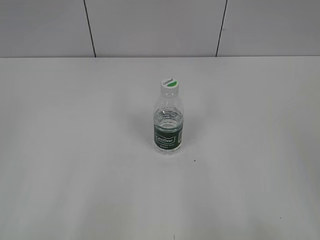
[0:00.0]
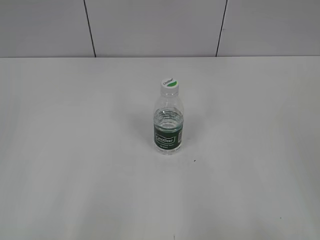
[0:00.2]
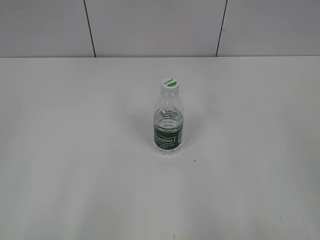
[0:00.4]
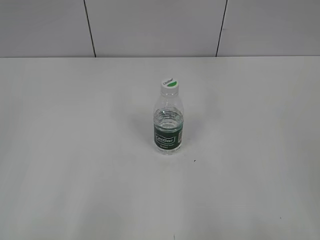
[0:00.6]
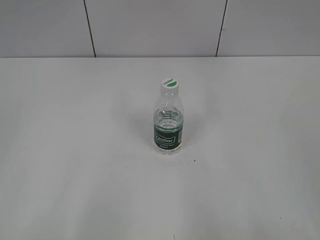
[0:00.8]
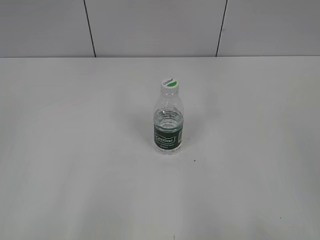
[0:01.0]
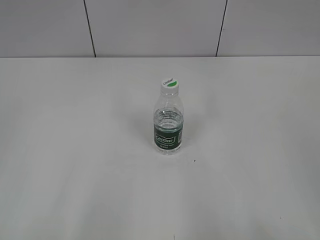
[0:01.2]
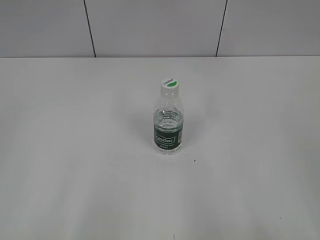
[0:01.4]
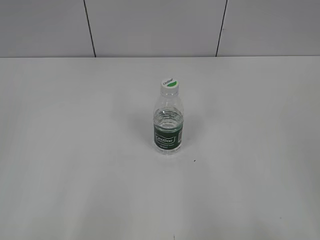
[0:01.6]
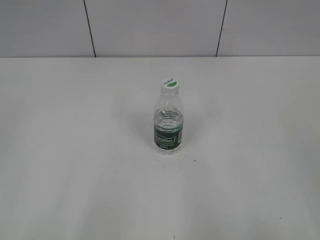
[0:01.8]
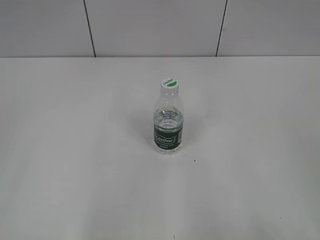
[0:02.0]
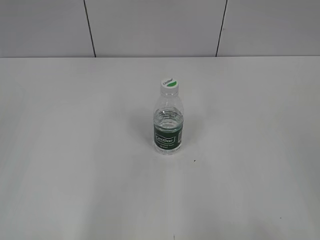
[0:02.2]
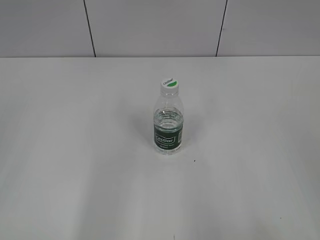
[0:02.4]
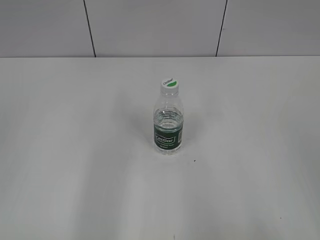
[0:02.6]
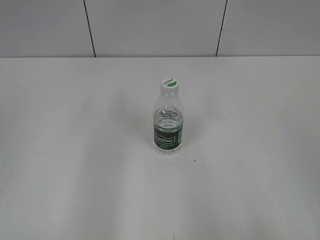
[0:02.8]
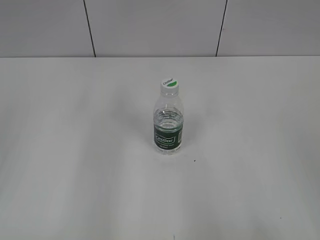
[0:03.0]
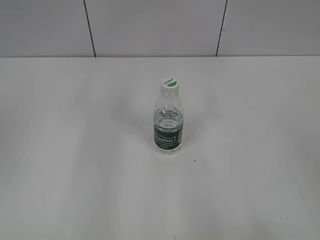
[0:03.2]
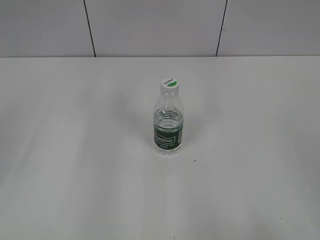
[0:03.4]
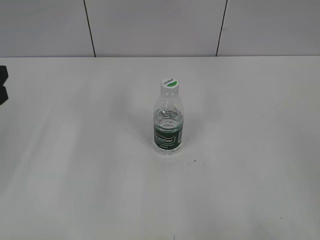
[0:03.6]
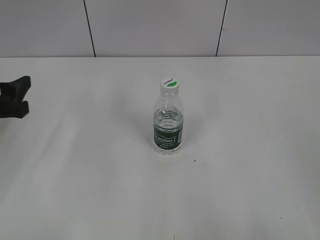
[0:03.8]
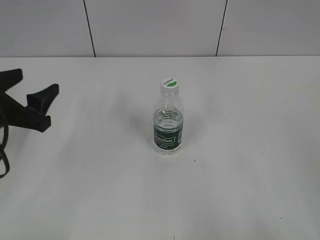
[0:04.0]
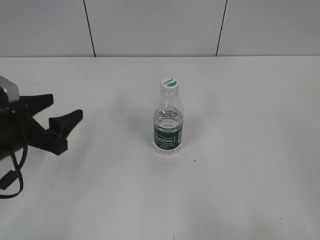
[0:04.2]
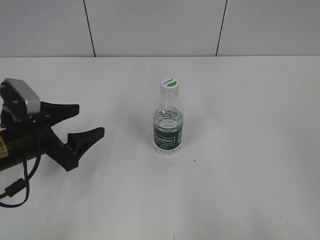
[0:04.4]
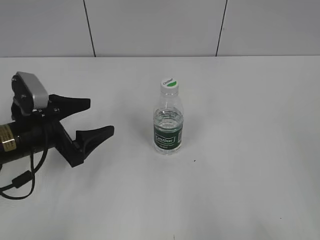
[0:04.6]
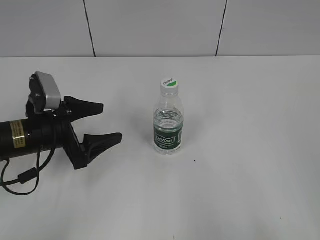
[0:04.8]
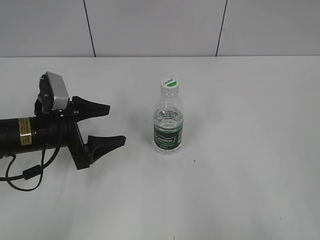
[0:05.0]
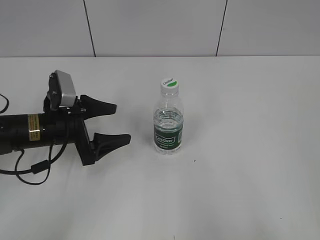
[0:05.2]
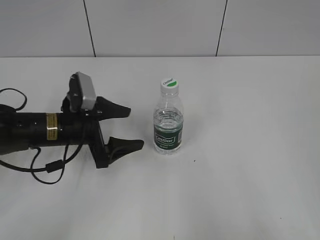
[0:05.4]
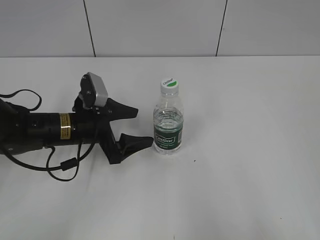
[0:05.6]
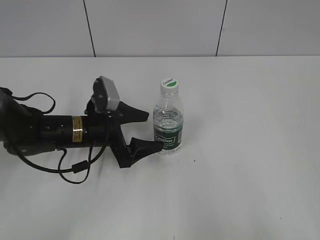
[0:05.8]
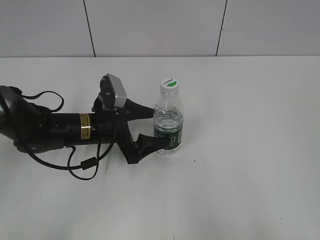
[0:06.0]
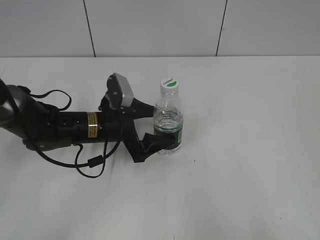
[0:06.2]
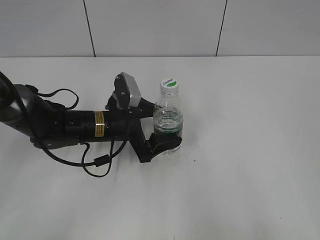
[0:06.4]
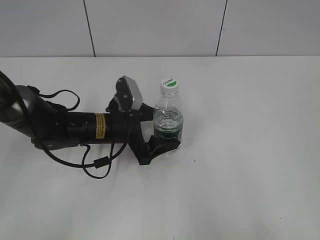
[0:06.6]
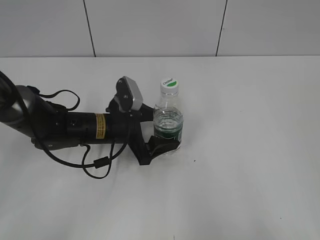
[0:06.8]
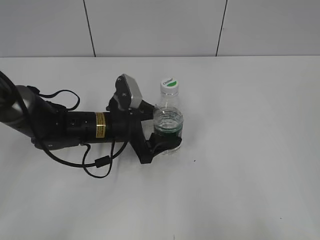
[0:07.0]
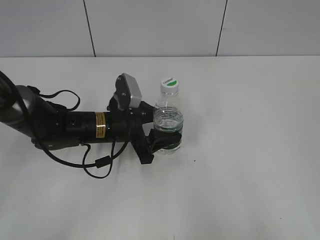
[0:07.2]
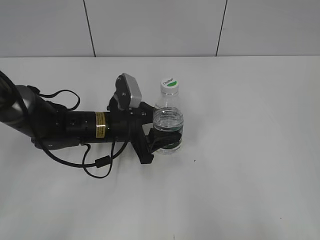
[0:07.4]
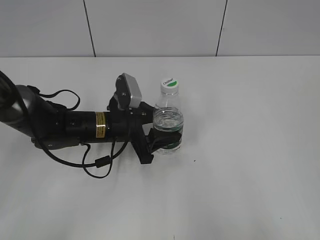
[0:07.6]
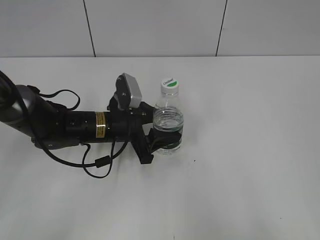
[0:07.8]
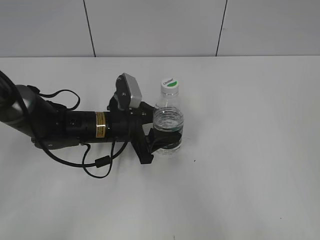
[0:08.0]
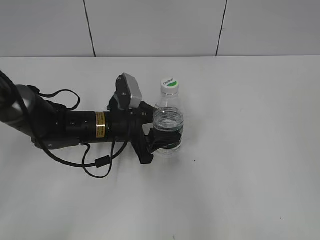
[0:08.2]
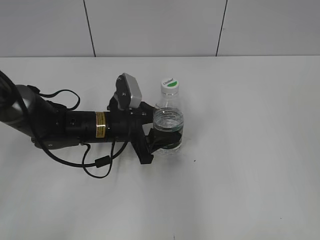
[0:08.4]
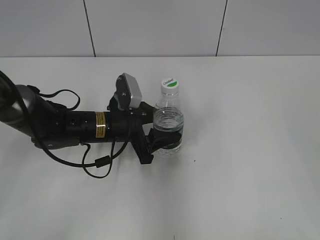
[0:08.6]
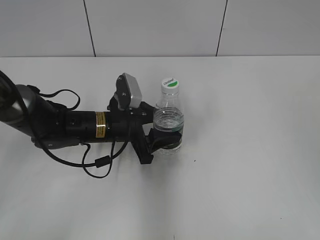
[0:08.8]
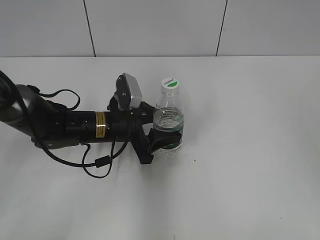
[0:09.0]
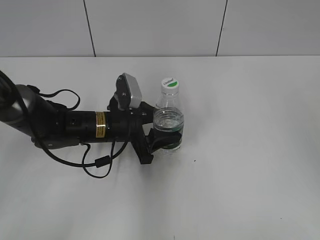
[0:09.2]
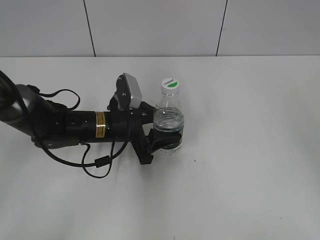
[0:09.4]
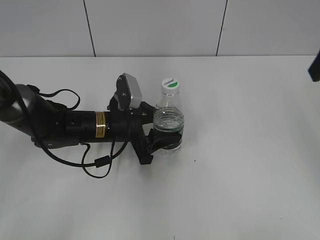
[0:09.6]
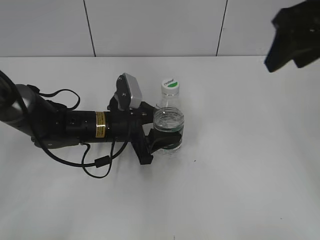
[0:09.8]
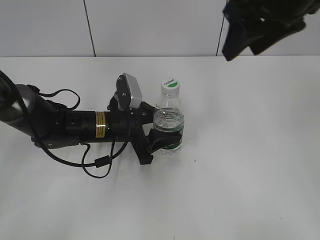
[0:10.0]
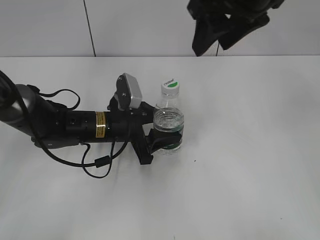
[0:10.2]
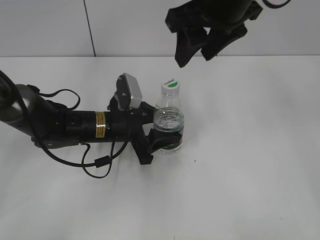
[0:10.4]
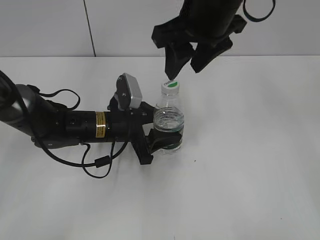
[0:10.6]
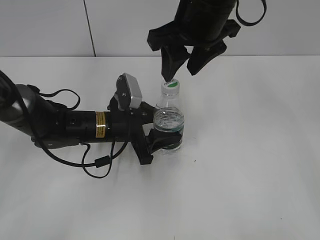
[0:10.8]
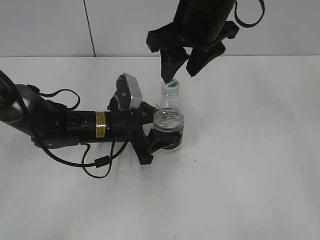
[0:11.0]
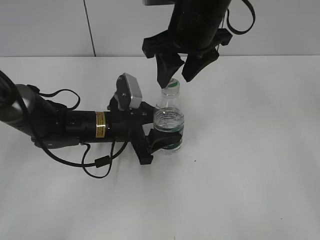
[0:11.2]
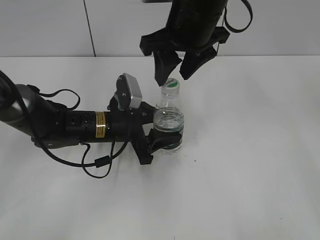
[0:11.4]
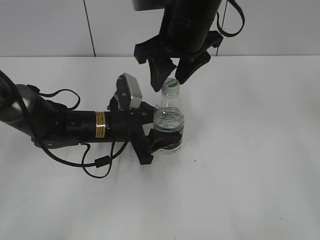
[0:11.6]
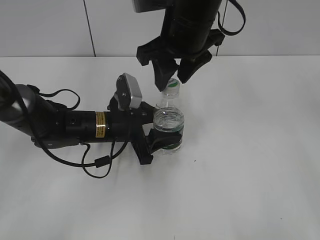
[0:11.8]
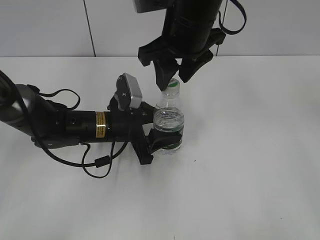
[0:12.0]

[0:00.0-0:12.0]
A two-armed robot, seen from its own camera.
Step, 0:00.0 to 0:07.4: Grasp the bottle and move it to the center of the table with the left gripper.
0:03.0 to 0:04.4: The left gripper travels downward, forward and to the right by roughly 20 cm.
0:04.4 to 0:06.0: The left gripper shifts roughly 10 cm to the right and forward.
0:06.0 to 0:07.6: The left gripper closes.
0:07.6 to 0:09.0: The right gripper shifts about 20 cm forward, and closes up.
0:09.0 to 0:10.4: The right gripper goes some 25 cm to the left and forward.
0:10.4 to 0:12.0: The right gripper travels downward by approximately 5 cm.

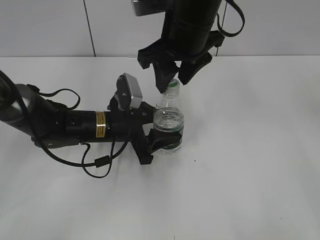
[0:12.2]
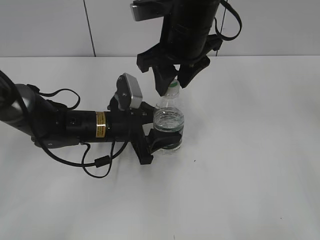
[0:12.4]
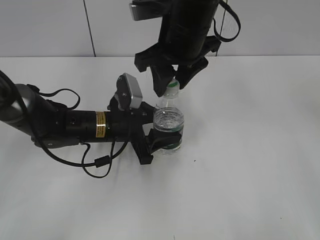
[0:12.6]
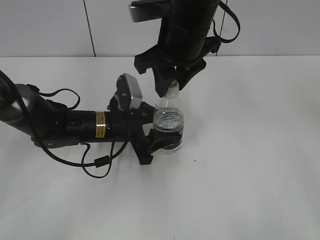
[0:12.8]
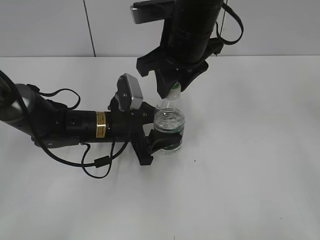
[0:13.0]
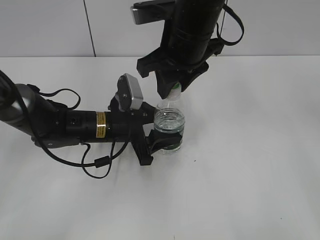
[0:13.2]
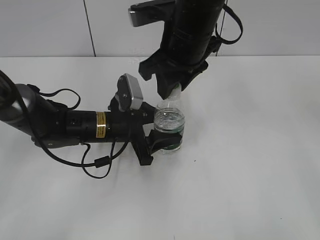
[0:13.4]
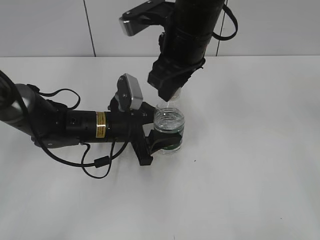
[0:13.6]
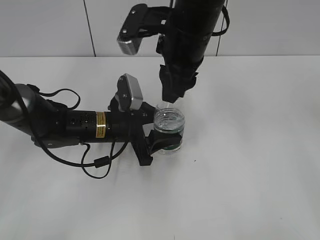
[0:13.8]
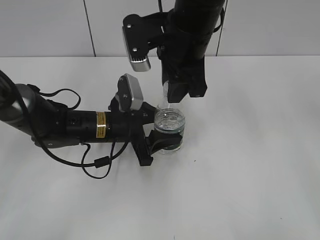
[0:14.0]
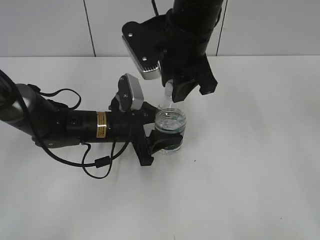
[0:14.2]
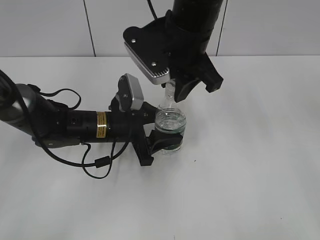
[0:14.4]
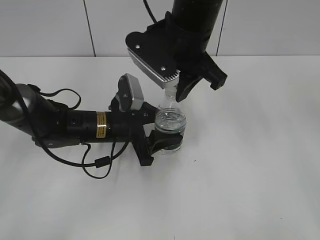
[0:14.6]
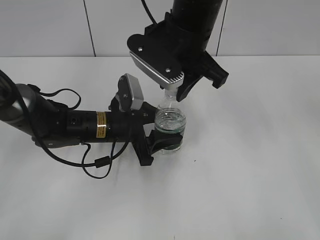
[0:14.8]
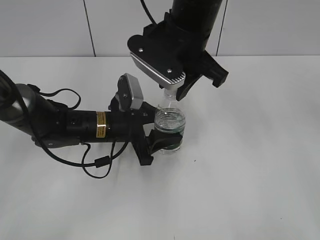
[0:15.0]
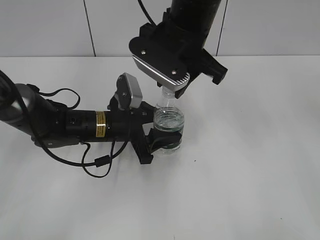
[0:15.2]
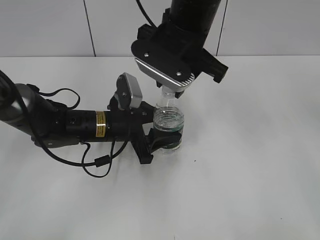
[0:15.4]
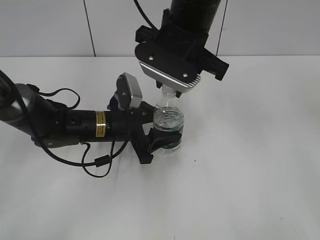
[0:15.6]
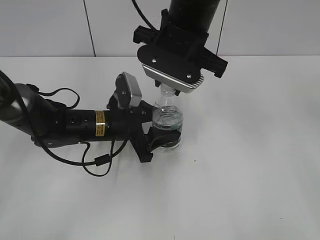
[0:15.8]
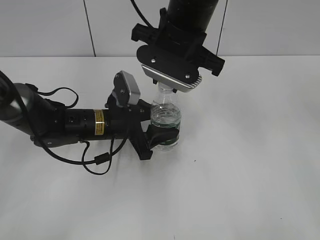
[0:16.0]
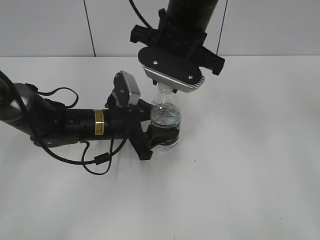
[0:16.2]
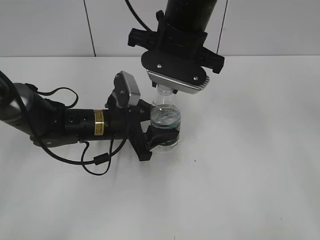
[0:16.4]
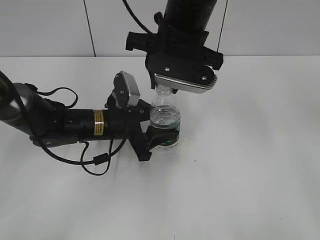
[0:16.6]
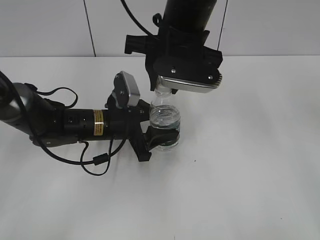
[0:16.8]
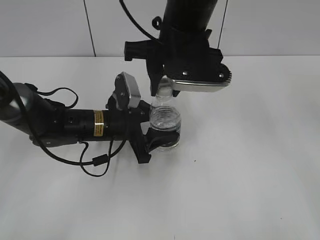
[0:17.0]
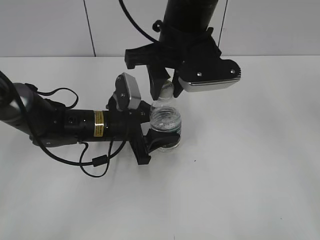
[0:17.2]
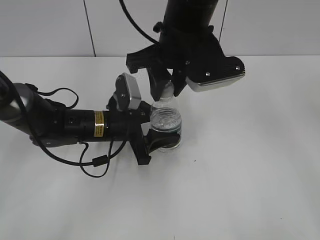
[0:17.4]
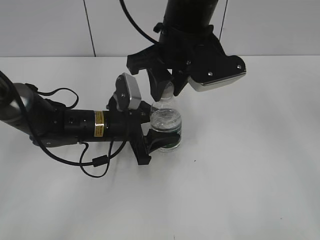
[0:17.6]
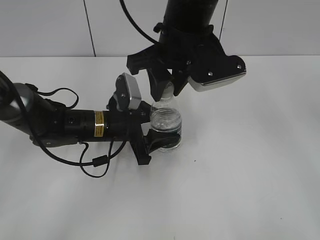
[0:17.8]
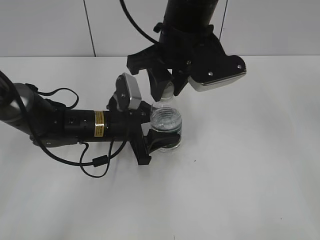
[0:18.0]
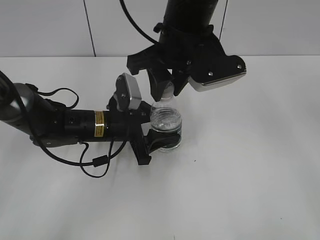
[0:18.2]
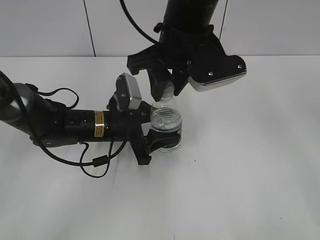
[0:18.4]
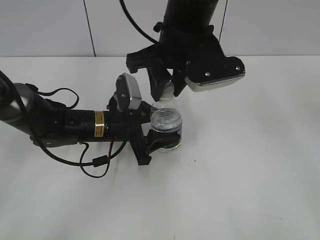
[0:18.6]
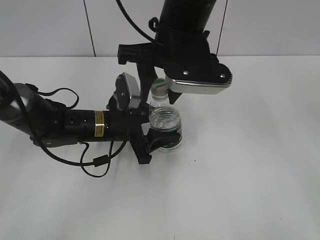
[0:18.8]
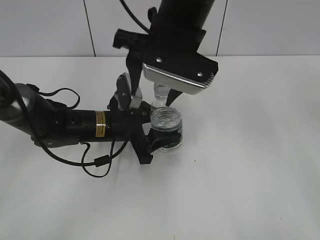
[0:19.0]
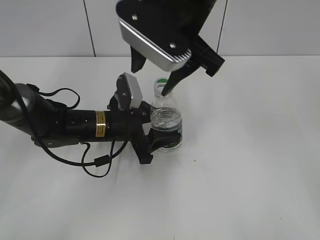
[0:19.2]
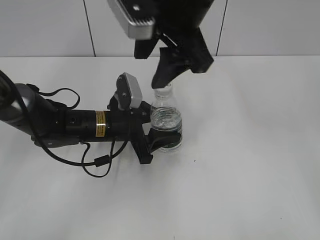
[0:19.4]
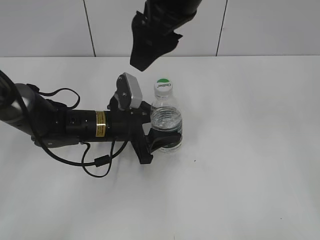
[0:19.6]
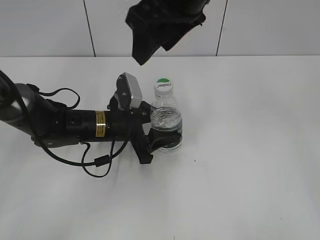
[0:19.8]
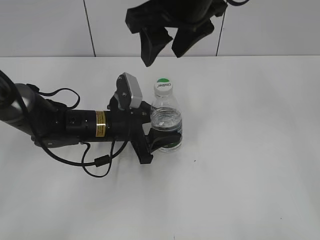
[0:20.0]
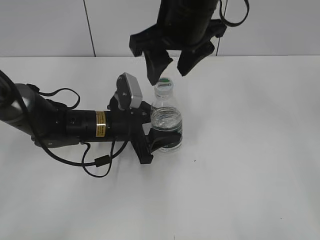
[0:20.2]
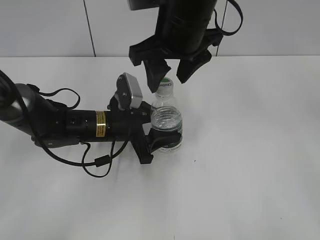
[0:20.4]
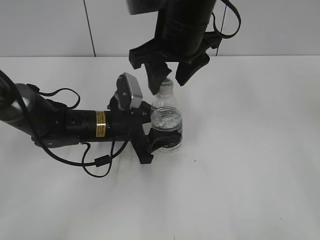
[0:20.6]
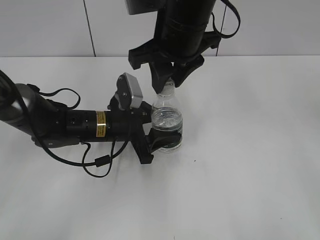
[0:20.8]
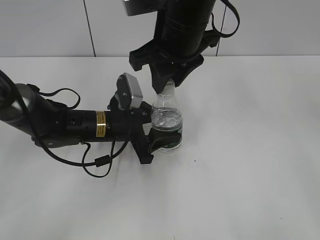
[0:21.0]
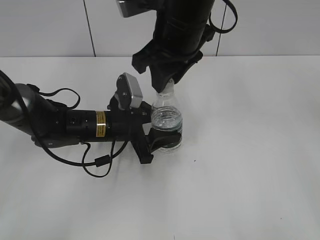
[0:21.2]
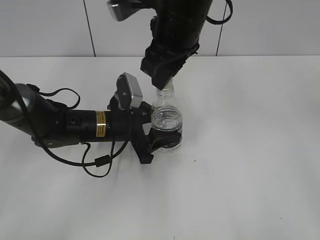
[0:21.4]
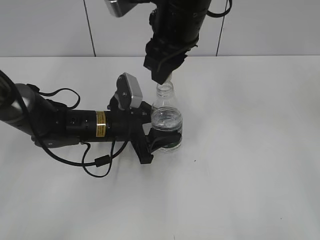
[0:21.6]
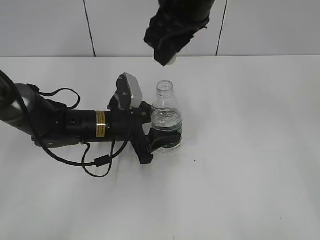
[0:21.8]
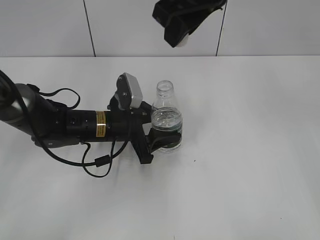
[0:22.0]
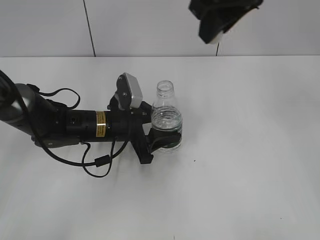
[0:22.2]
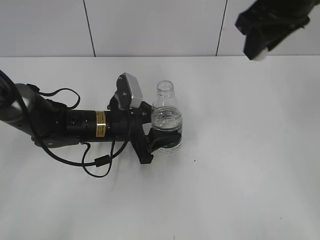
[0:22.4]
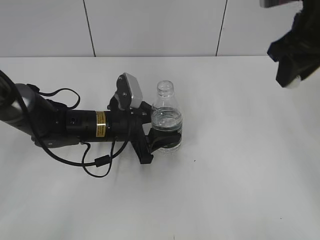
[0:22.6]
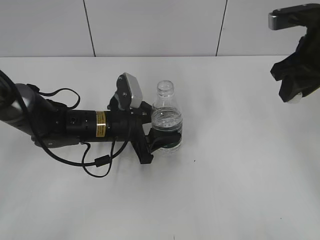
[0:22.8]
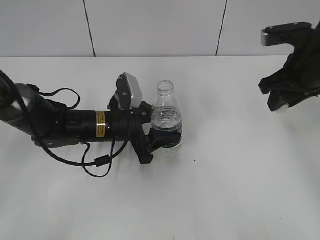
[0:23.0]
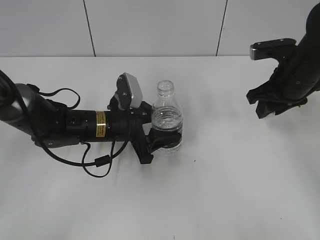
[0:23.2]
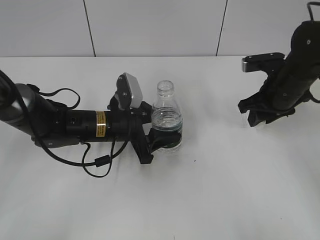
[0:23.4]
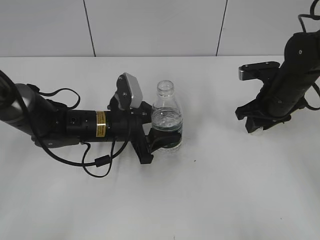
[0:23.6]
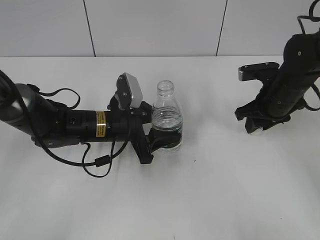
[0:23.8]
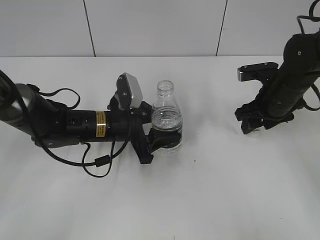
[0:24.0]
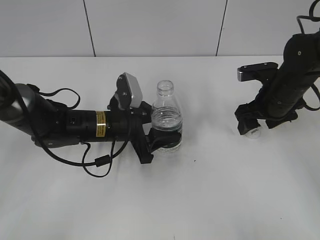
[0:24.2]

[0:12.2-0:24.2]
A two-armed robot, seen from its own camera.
Step, 0:12.2 to 0:21.6: Unscrew the bottle cap with the right gripper while holding the bottle with the left gripper.
Step, 0:21.8 to 0:24.2: Place the bottle cap on the table with the right gripper.
0:18.2 to 0:19.8: The right gripper goes about 10 cm upward, and opens its fingers.
0:19.8 to 0:21.2: The right gripper heads downward, covering approximately 5 cm, and closes up.
0:21.2 to 0:22.6: The right gripper travels to the right by roughly 20 cm.
0:22.6 to 0:24.2: The right gripper is displaced downward by some 15 cm, and opens up.
